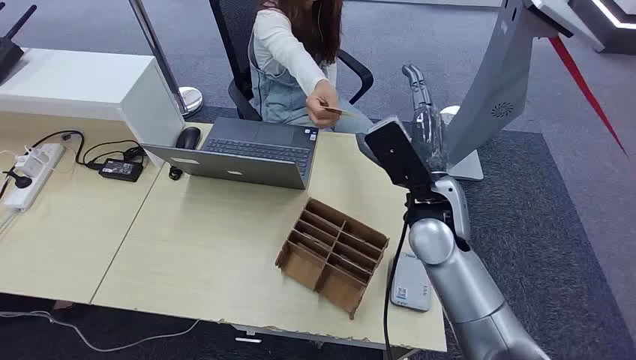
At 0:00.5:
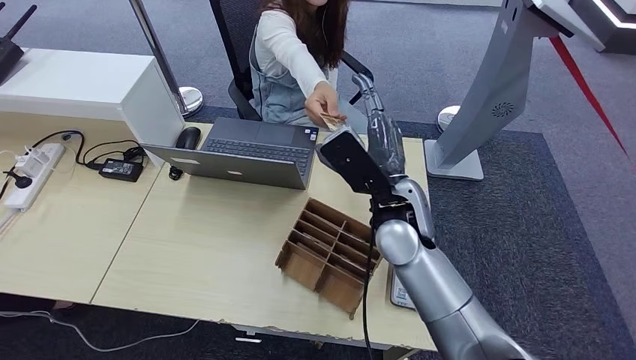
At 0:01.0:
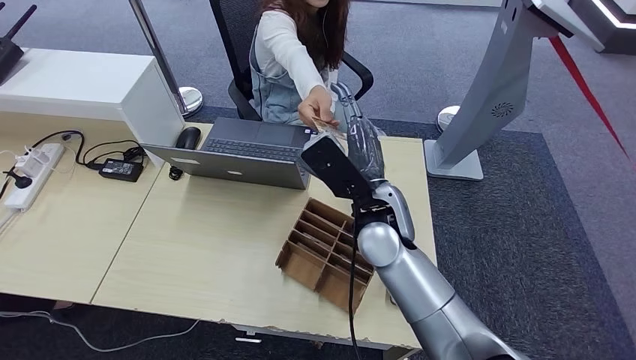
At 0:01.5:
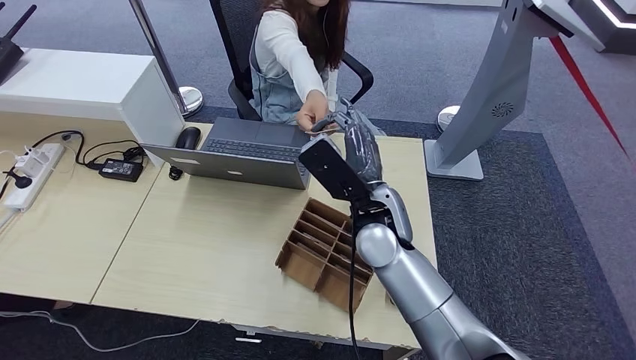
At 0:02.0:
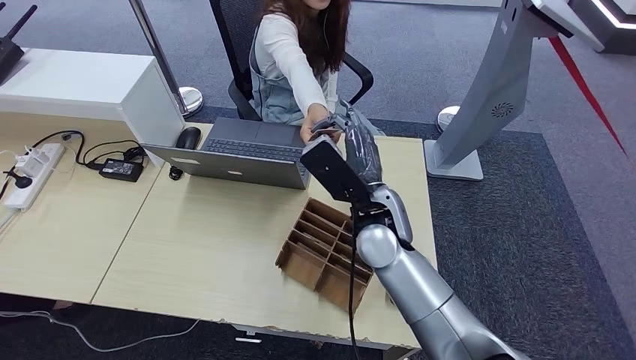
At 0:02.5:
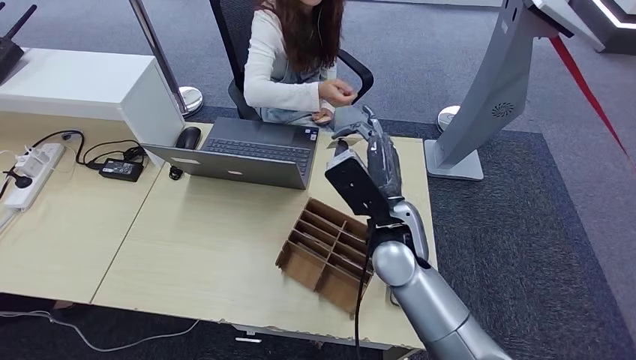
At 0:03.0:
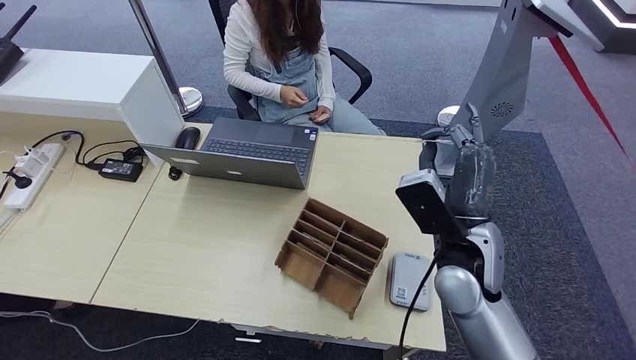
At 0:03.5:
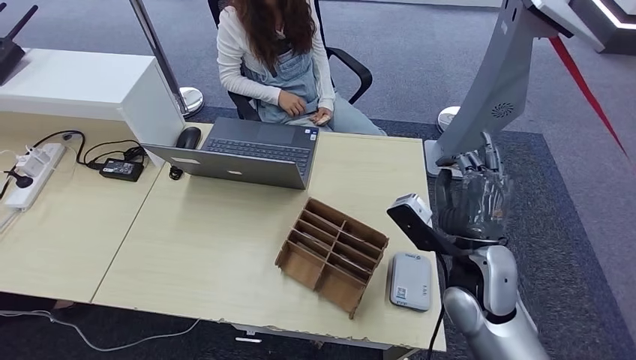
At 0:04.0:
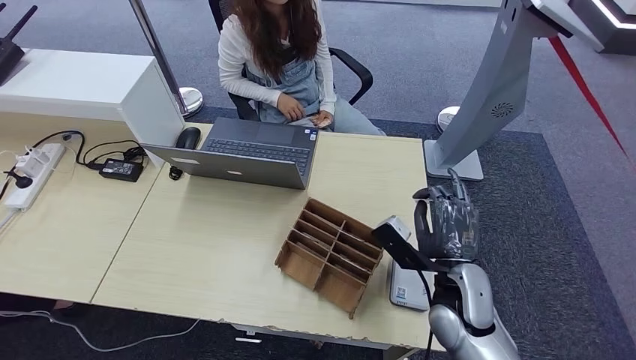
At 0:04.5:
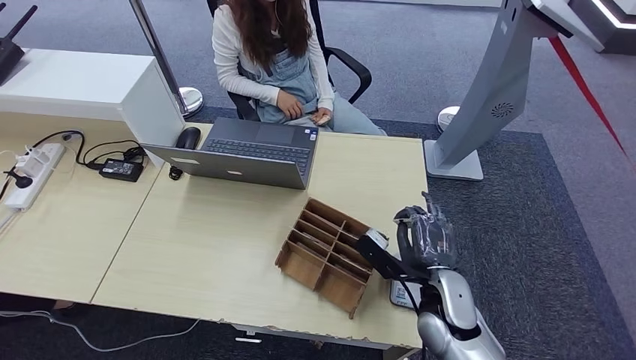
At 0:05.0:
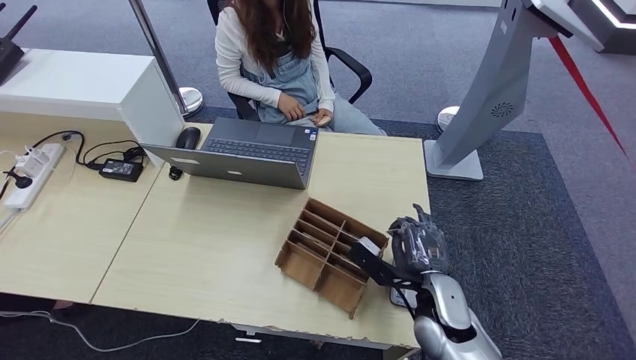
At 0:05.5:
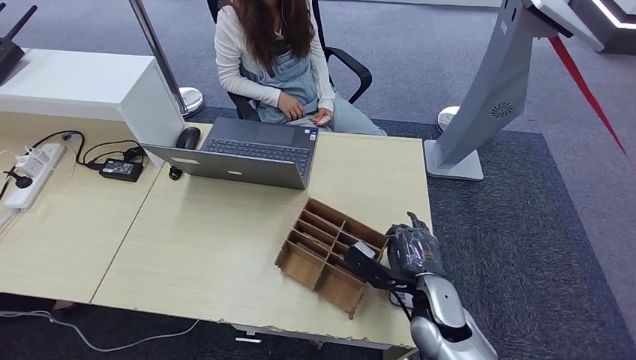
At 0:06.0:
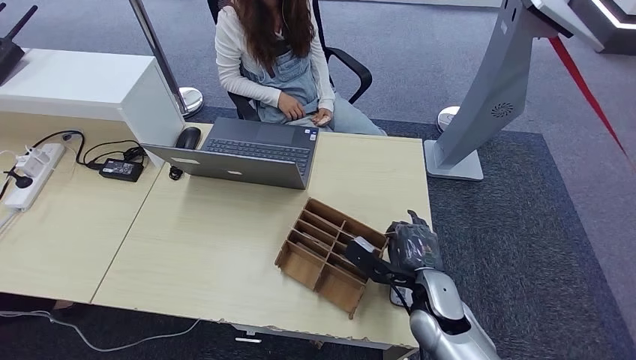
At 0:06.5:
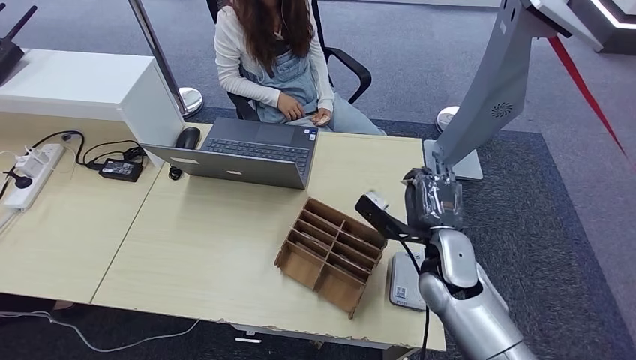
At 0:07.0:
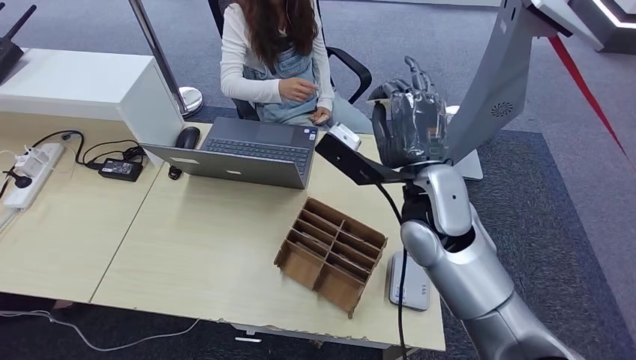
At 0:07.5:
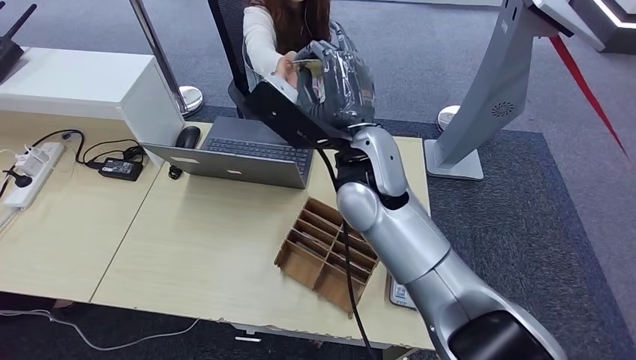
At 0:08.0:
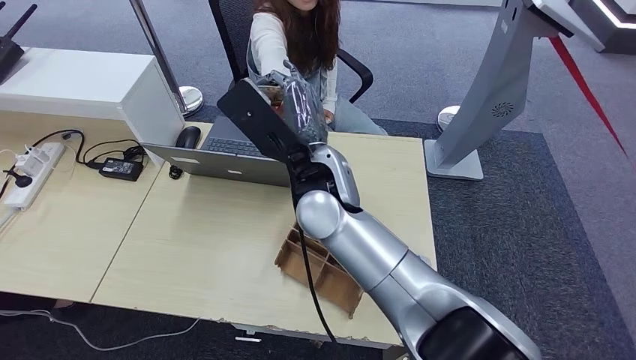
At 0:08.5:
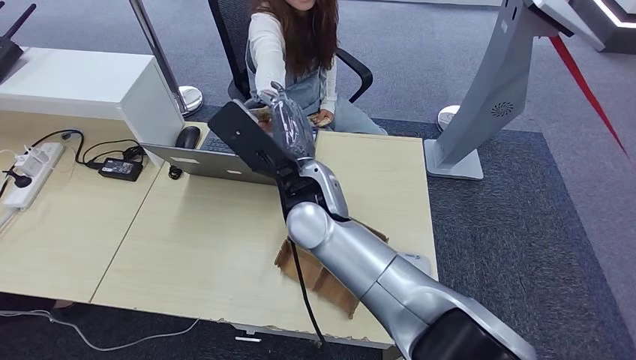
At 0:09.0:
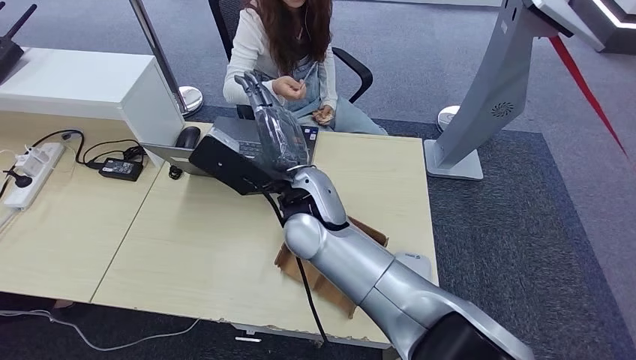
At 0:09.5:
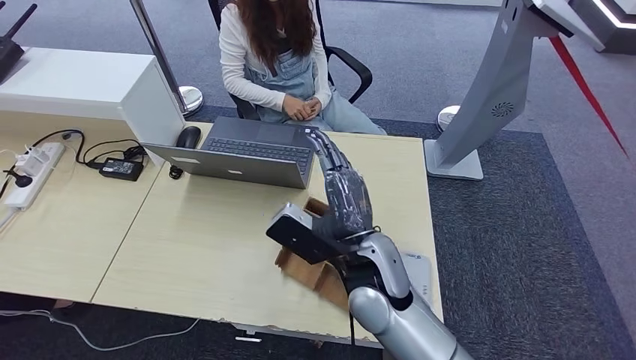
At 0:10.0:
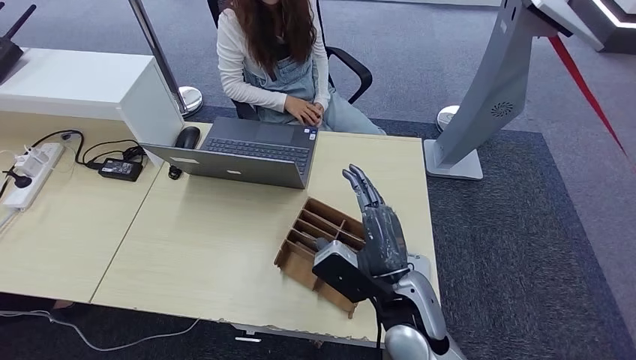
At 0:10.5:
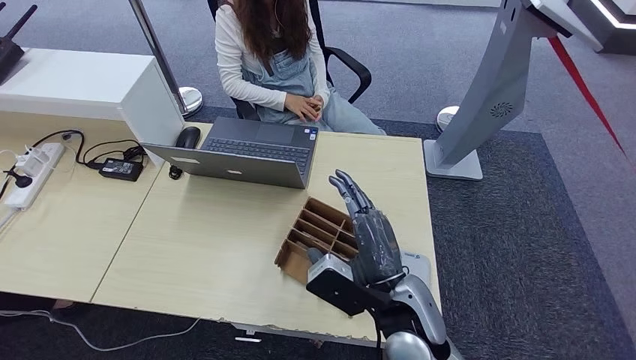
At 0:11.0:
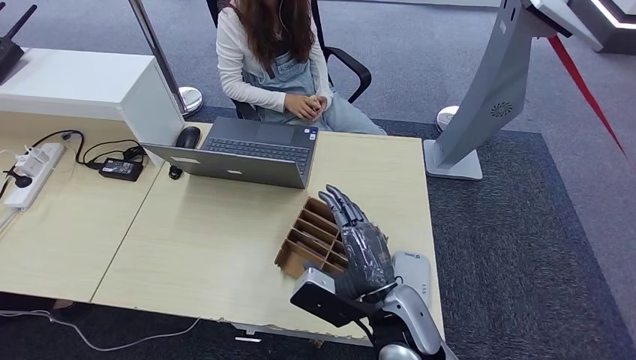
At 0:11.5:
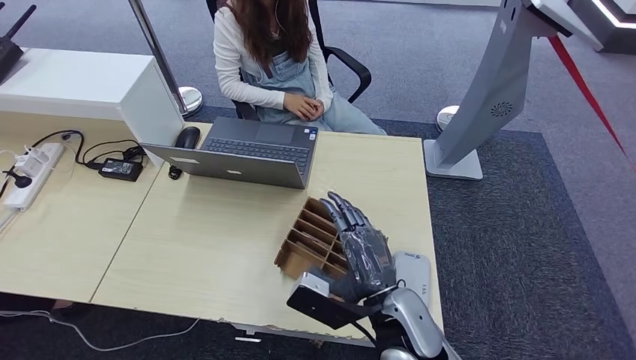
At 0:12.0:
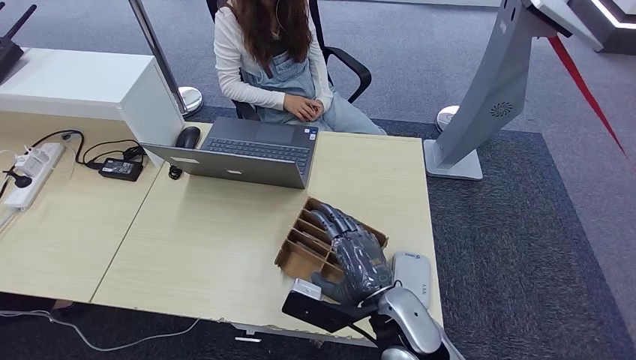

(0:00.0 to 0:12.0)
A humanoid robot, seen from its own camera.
Step, 0:00.0 - 0:03.0: Take the ID card from the person's hand.
Step, 0:03.5 - 0:07.5: Place the ID card on the card reader.
0:02.0 - 0:04.0: The right hand travels to the right, downward and backward by about 20 cm.
0:04.0 - 0:06.0: The right hand changes place by some 5 cm.
0:06.0 - 0:08.0: The right hand goes some 30 cm upward and to the left.
0:08.0 - 0:10.0: The right hand shifts some 20 cm downward, to the right and backward.

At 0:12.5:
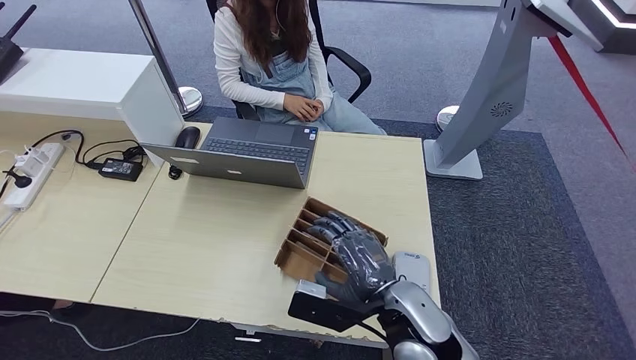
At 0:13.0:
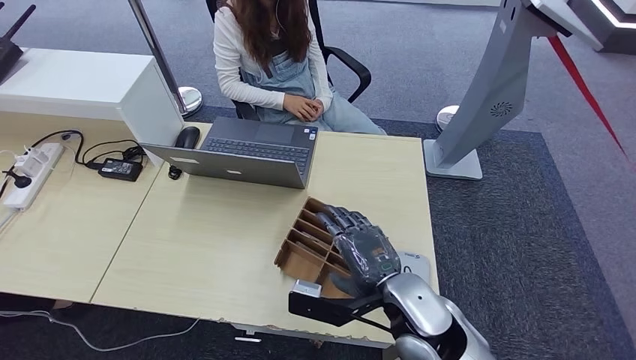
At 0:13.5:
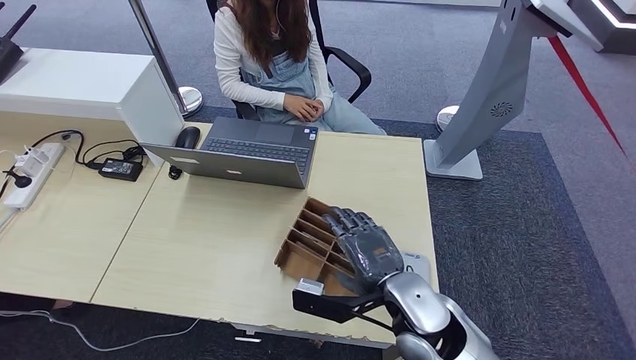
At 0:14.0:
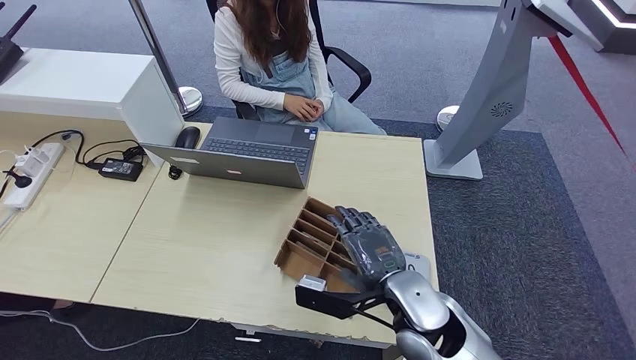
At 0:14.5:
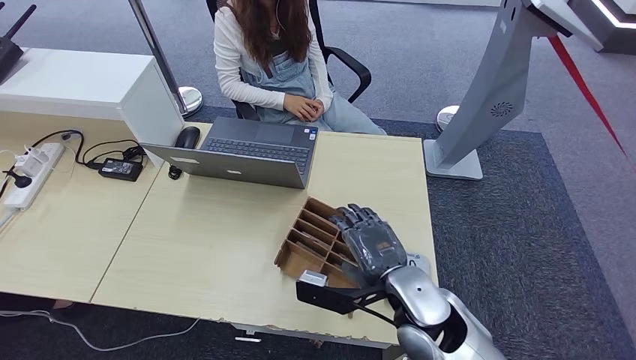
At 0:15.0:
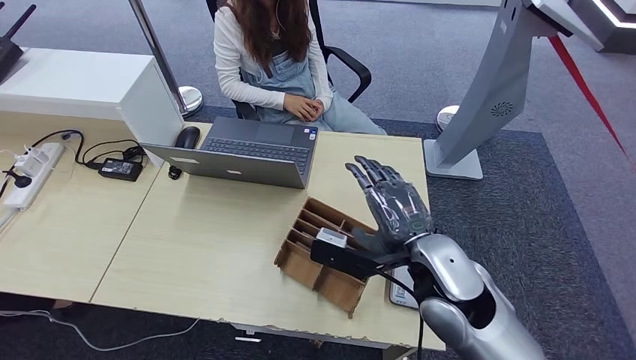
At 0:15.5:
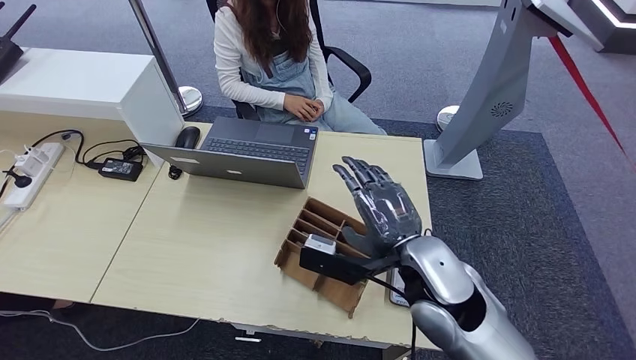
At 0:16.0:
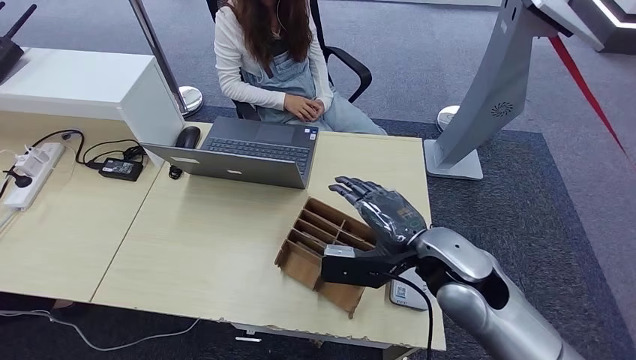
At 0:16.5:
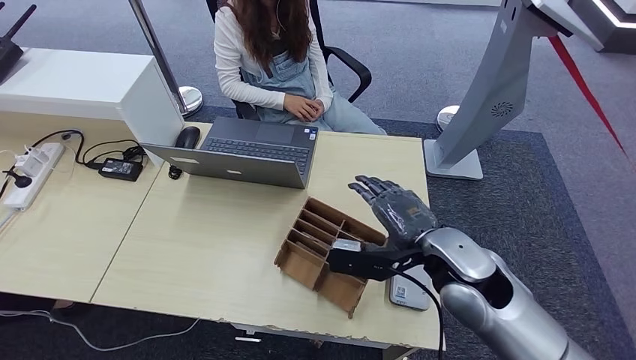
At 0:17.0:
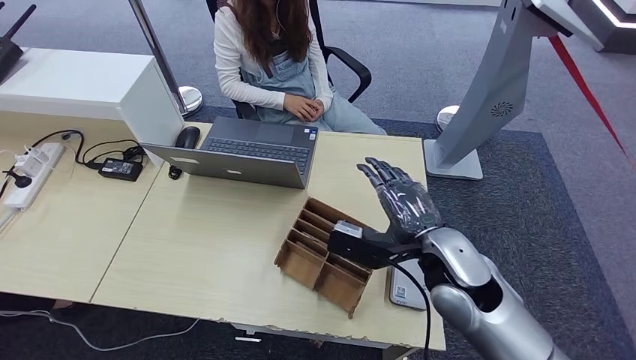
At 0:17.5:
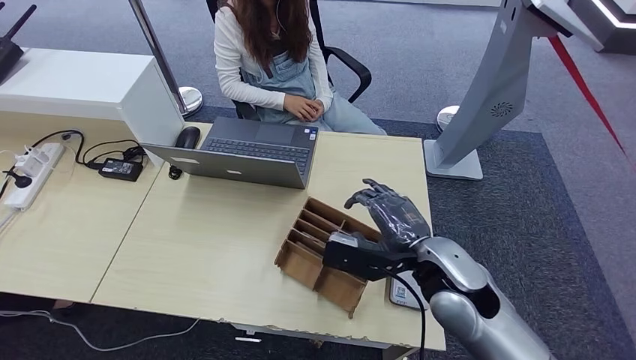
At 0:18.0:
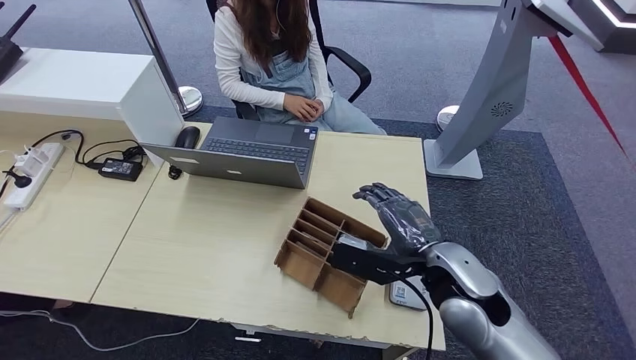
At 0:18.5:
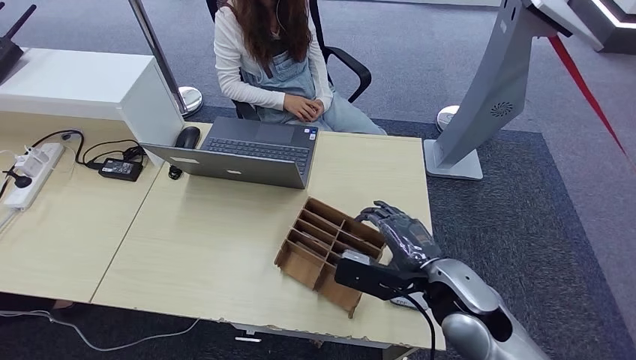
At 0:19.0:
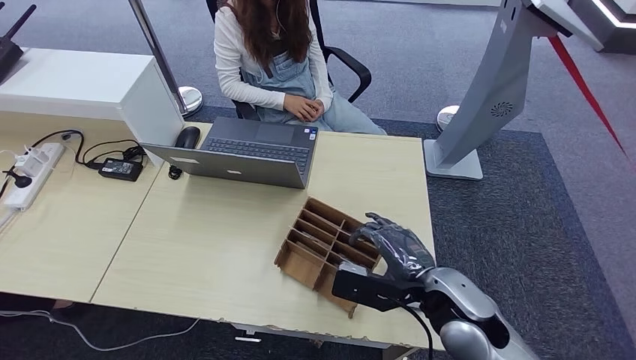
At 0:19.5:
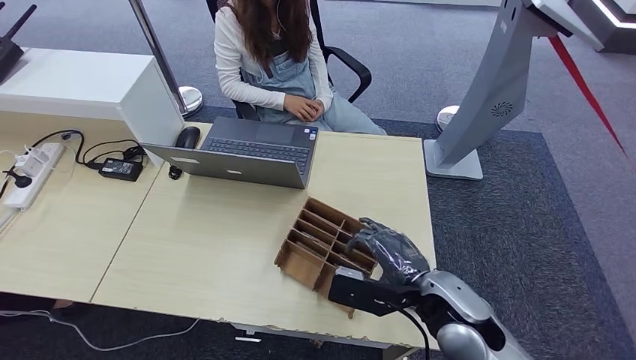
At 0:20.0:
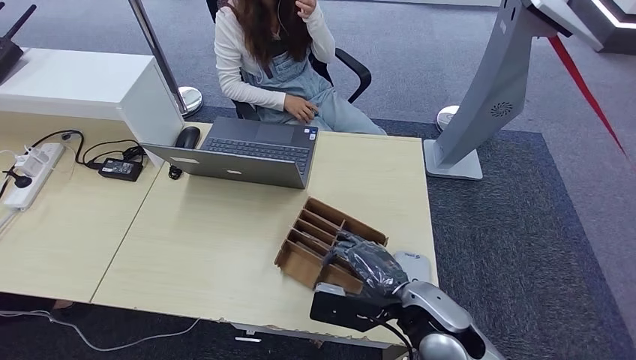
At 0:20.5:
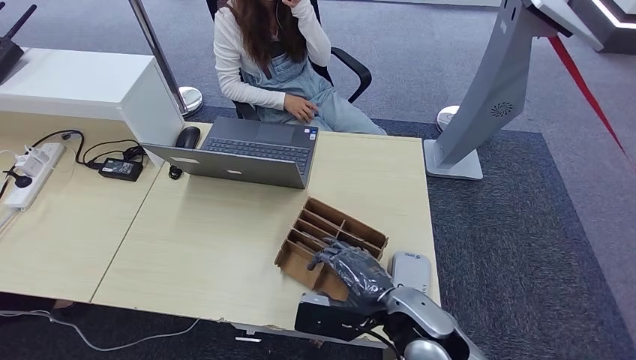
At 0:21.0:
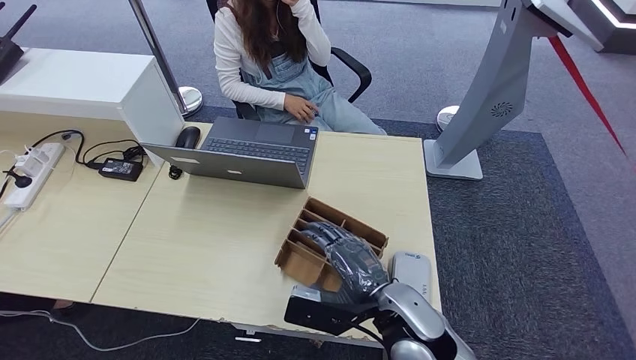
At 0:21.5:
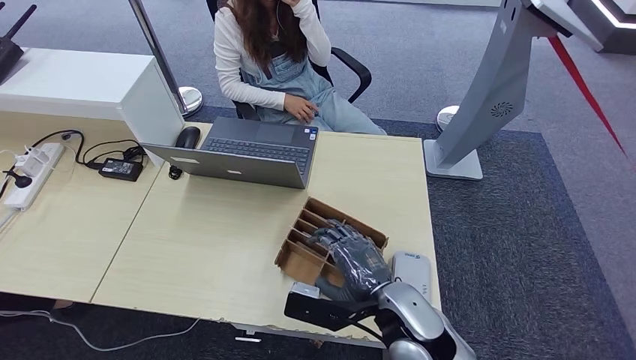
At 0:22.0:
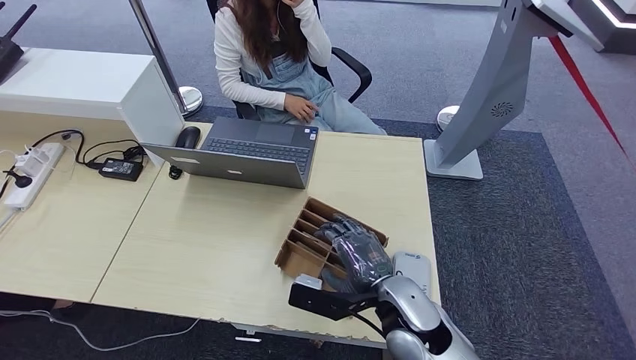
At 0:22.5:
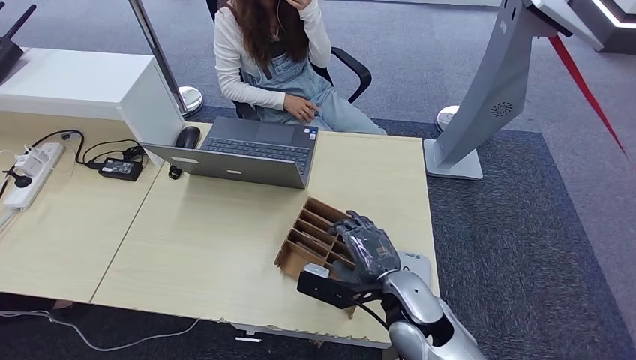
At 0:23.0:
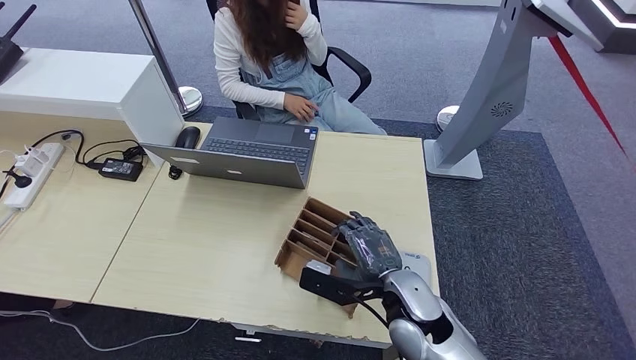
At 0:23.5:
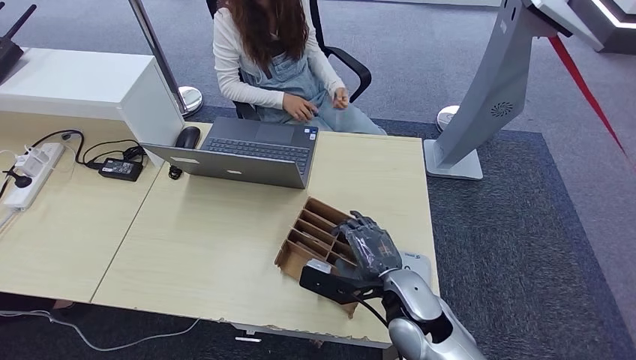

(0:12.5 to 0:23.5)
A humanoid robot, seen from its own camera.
0:14.5 - 0:16.0: The right hand heads upward, covering approximately 5 cm.
0:16.0 - 0:18.0: The hands stay close to where they were, moving slightly.
0:18.0 - 0:20.0: The right hand moves some 5 cm.
0:20.0 - 0:23.5: The hands stay close to where they were, moving slightly.
